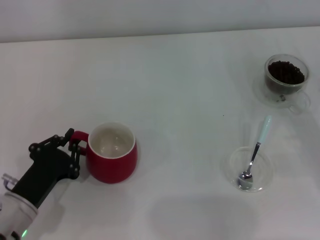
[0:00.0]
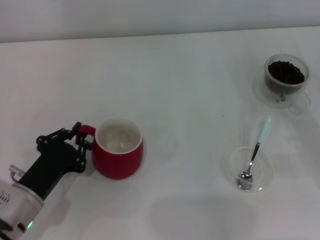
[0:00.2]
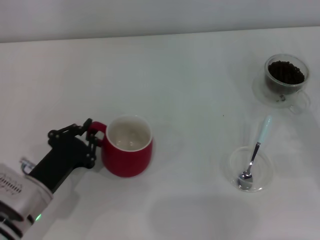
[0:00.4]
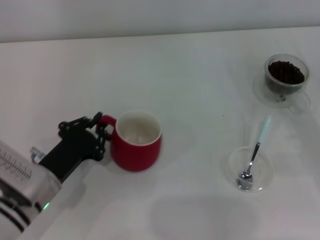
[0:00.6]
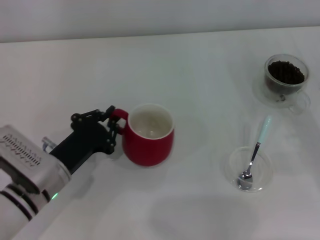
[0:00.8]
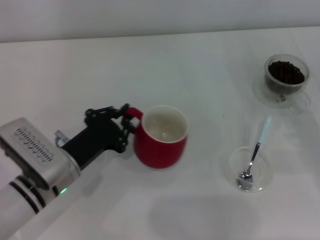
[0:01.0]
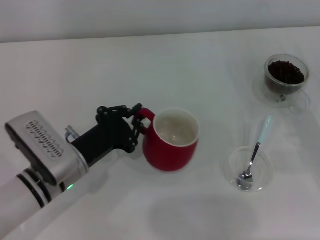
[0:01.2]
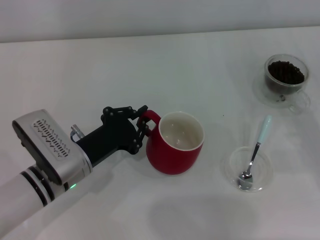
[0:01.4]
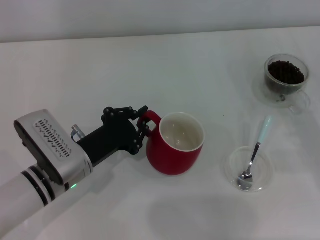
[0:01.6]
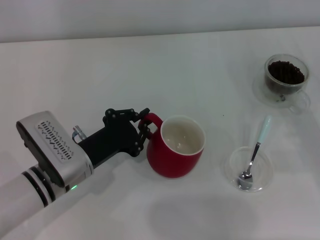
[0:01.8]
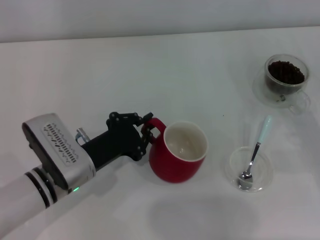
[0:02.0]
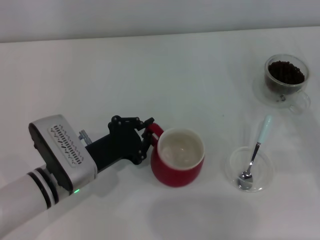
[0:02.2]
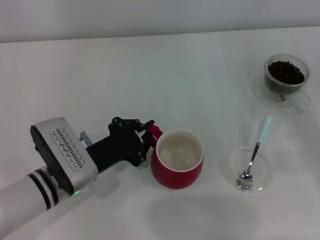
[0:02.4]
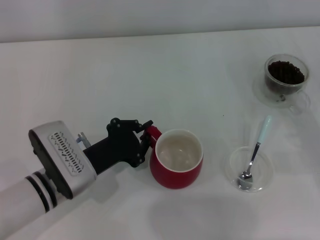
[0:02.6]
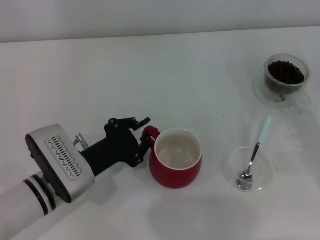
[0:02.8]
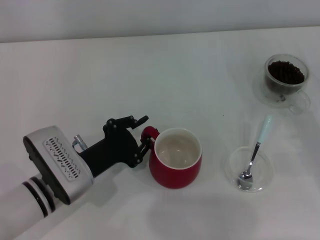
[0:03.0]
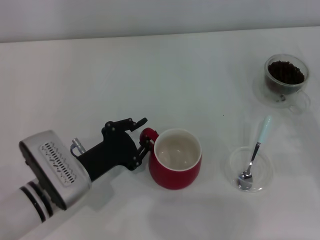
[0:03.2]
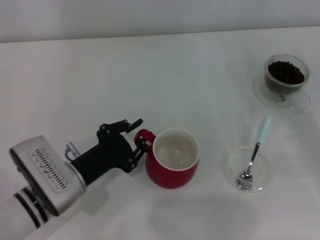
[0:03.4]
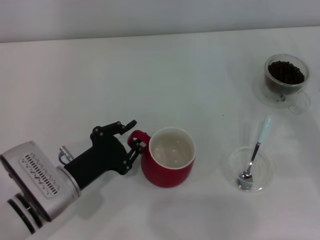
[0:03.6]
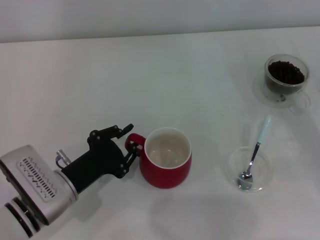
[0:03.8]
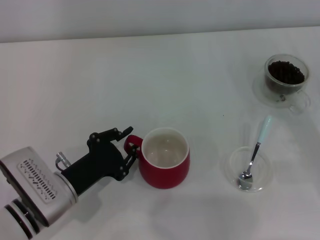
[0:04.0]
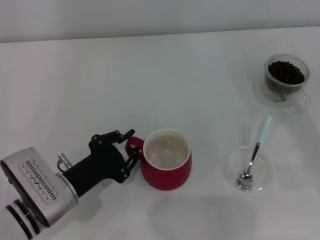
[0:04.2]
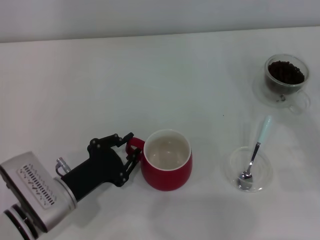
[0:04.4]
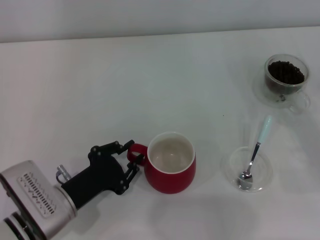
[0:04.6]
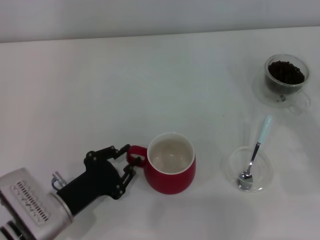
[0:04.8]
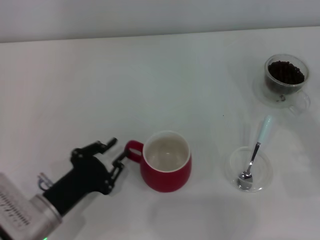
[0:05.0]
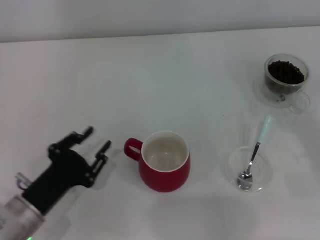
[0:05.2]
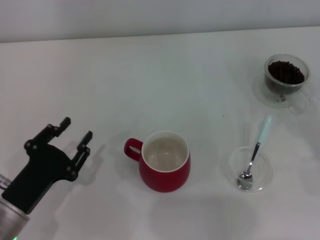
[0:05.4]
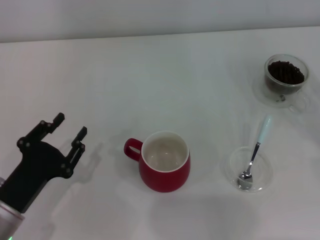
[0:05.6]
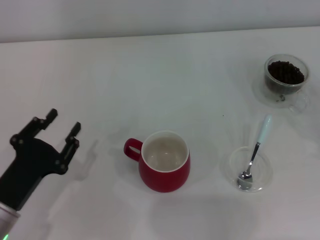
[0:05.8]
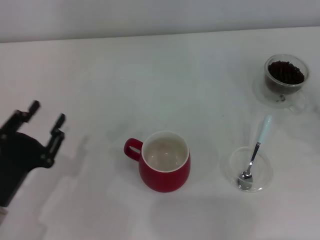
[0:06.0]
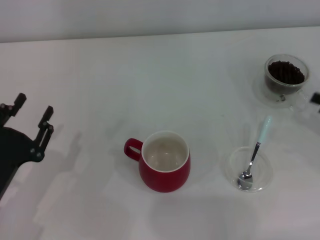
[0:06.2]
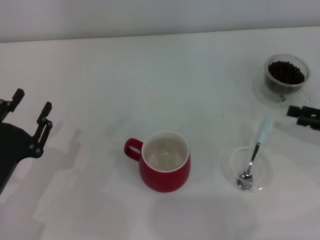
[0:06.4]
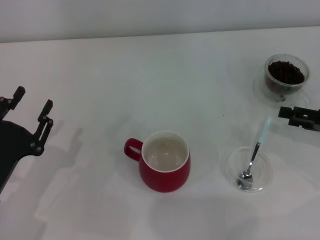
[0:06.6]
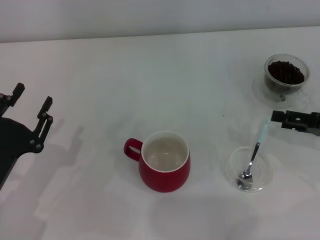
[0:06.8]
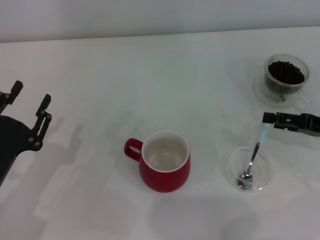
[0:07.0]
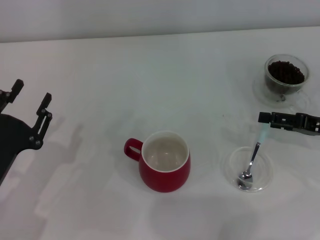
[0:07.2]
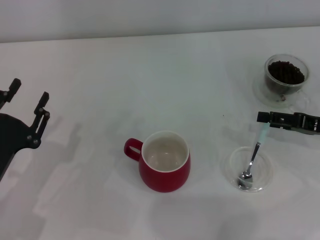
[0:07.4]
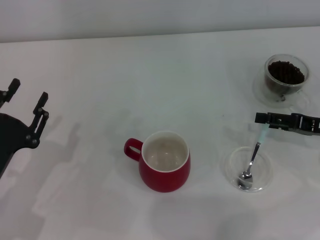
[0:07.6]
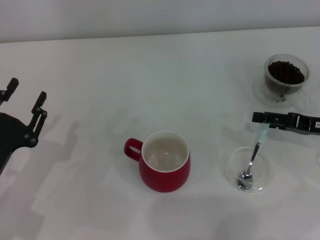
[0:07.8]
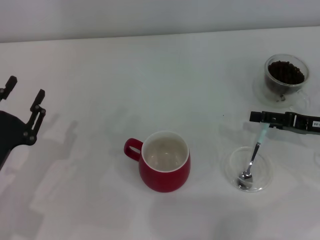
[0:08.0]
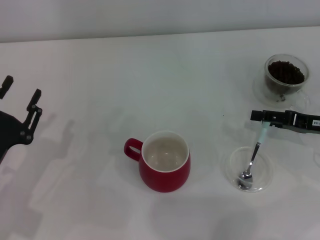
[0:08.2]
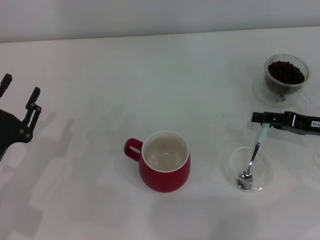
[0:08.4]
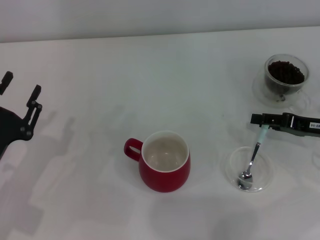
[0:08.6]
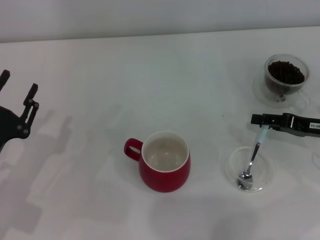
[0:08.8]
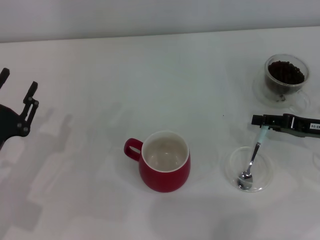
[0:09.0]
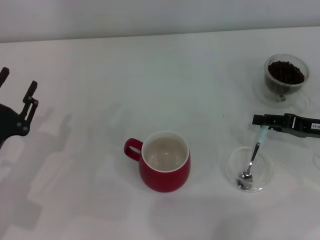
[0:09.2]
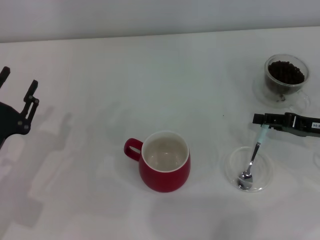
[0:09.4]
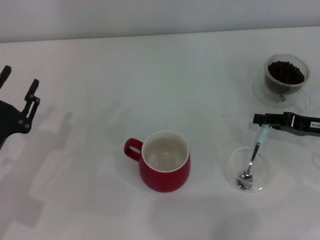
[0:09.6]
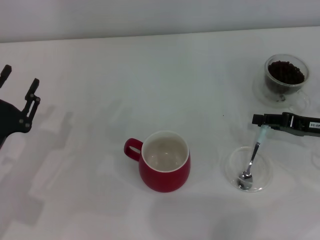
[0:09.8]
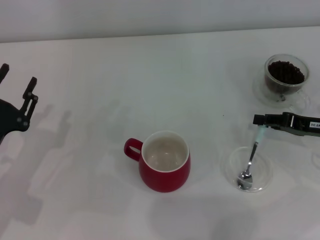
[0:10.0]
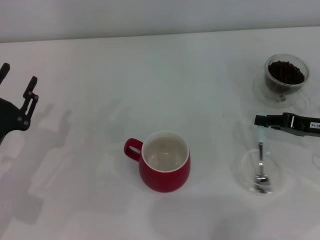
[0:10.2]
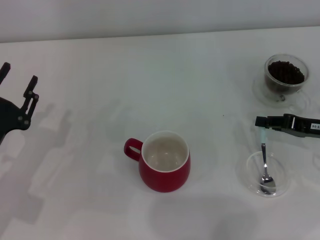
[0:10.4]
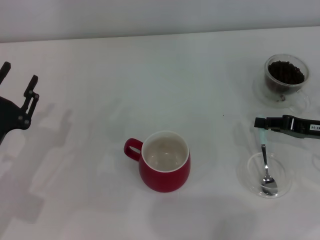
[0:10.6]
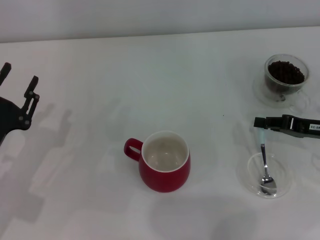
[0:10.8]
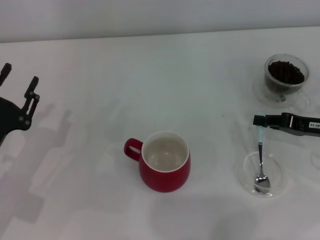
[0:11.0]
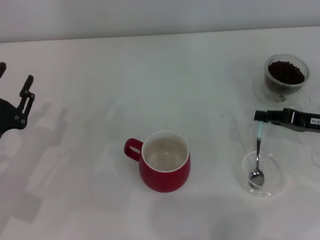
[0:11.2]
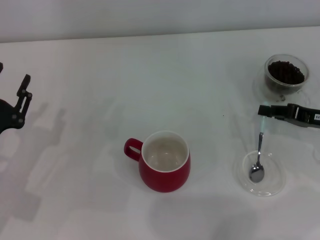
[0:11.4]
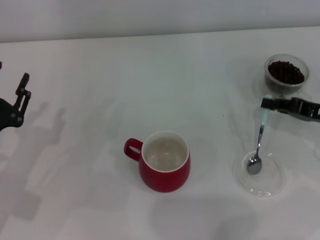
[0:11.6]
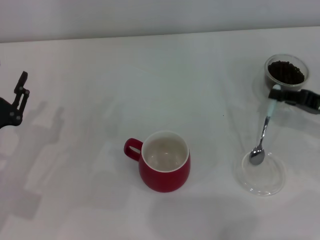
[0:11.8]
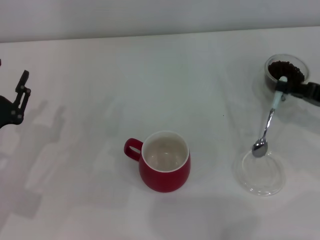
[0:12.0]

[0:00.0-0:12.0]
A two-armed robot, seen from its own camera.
Task of the whole recording: Use a blue spoon to take out the coffee beans from the glass and pour them into the red cup.
Step, 0:00.0 to 0:04.8: Move the cup to the center of view with the left gripper.
Step, 0:05.0 to 0:11.6: Pick up the spoon with the right gripper.
0:00.0 to 0:01.6: The left gripper moves to the right and forward, some 10 cm.
0:01.6 to 0:04.4: The grippers make only small movements.
0:04.4 to 0:06.0: The right gripper is displaced to the right by about 5 cm, while the left gripper goes approximately 5 cm to the left.
0:06.0 to 0:07.6: The right gripper moves to the left and forward, roughly 10 cm.
0:07.6 to 0:09.0: The right gripper closes up.
0:09.0 to 0:10.4: The right gripper closes up.
0:10.4 to 0:12.0: The grippers make only small movements.

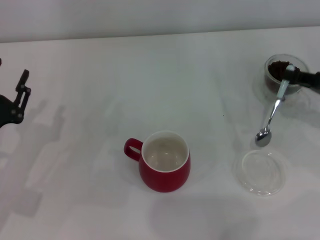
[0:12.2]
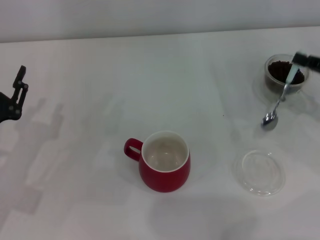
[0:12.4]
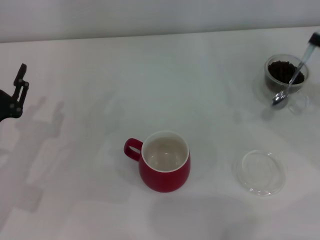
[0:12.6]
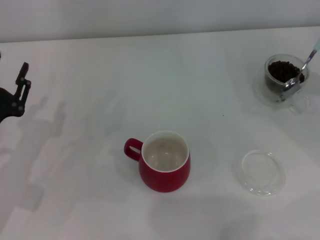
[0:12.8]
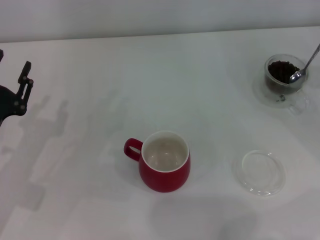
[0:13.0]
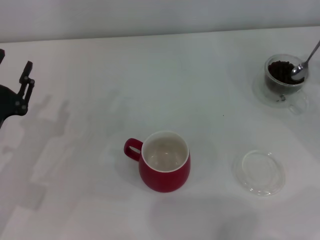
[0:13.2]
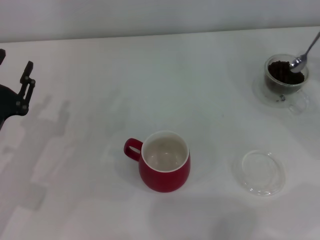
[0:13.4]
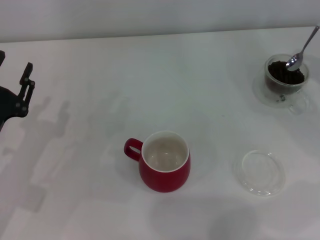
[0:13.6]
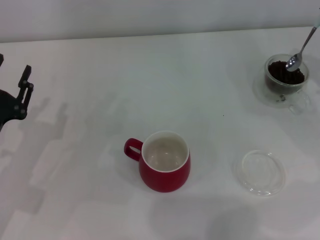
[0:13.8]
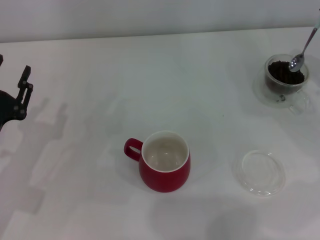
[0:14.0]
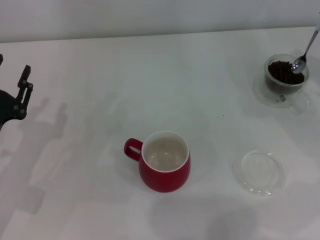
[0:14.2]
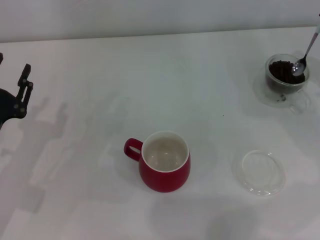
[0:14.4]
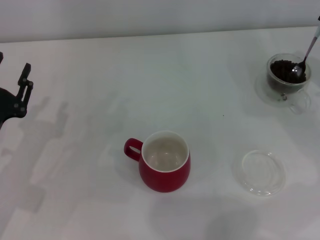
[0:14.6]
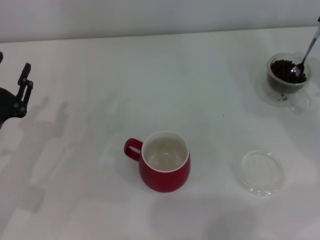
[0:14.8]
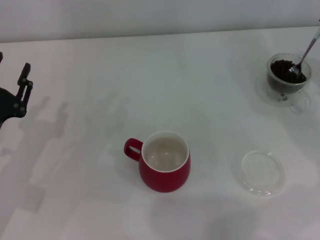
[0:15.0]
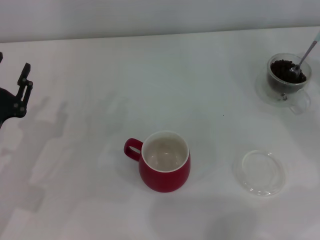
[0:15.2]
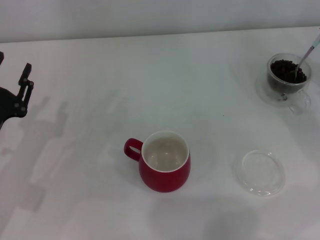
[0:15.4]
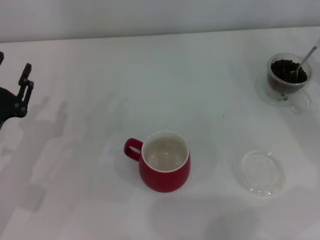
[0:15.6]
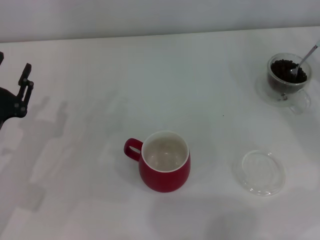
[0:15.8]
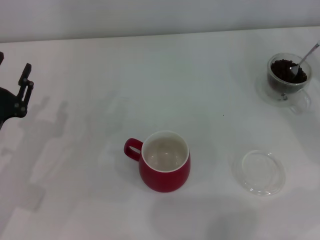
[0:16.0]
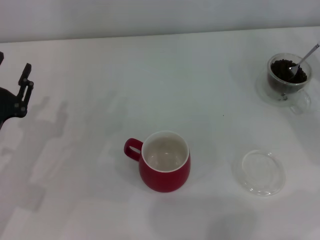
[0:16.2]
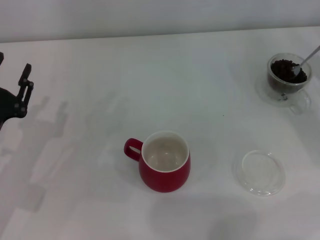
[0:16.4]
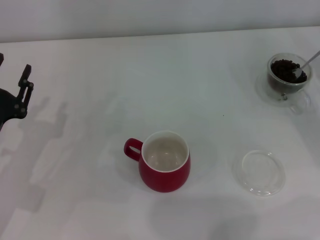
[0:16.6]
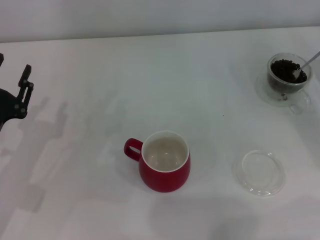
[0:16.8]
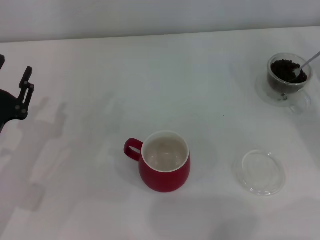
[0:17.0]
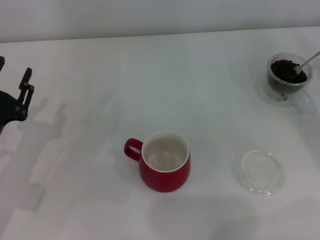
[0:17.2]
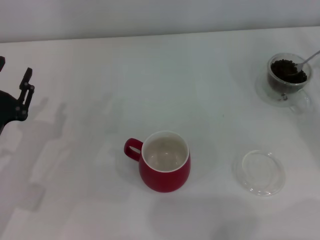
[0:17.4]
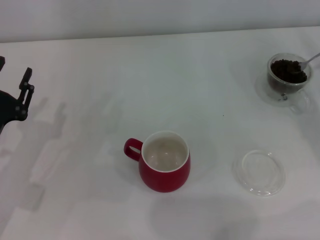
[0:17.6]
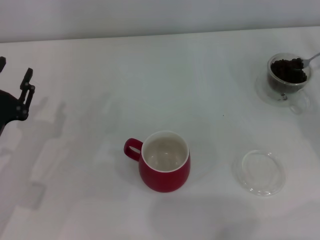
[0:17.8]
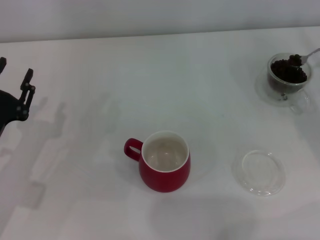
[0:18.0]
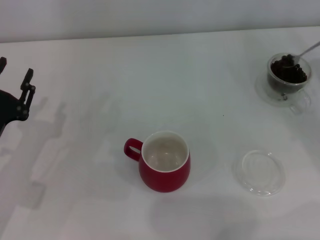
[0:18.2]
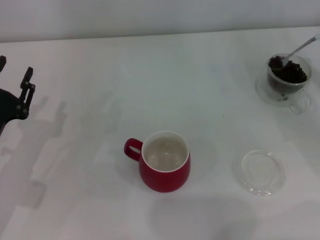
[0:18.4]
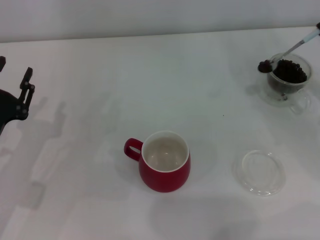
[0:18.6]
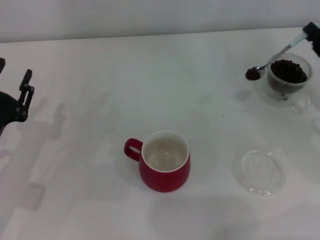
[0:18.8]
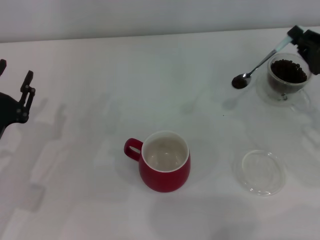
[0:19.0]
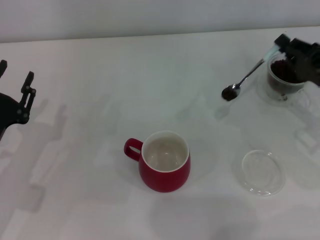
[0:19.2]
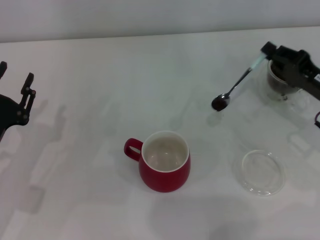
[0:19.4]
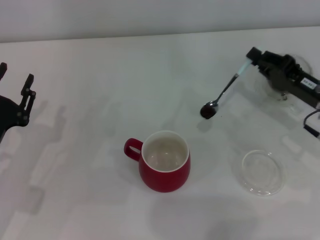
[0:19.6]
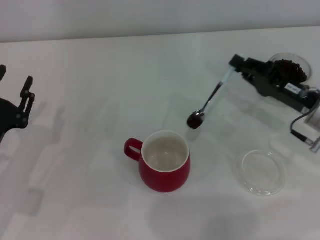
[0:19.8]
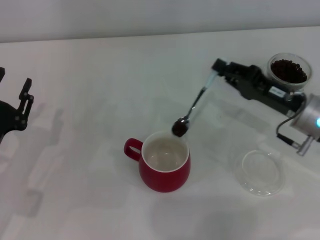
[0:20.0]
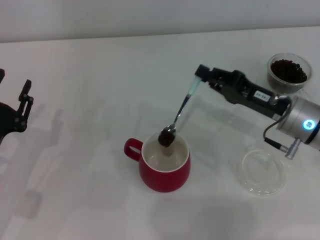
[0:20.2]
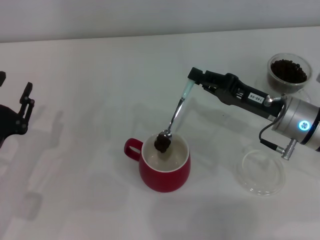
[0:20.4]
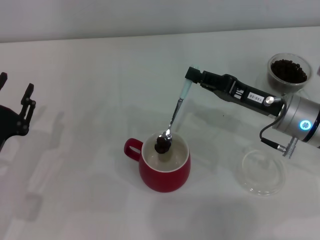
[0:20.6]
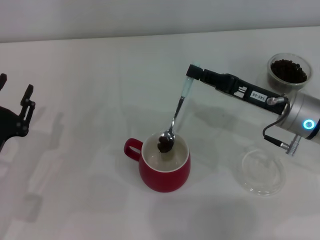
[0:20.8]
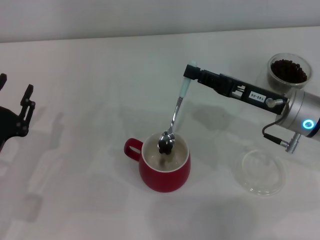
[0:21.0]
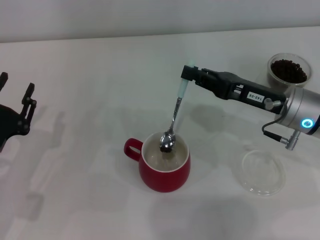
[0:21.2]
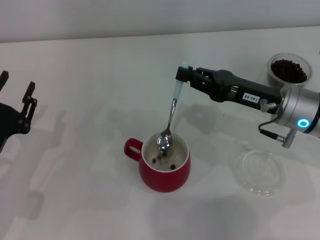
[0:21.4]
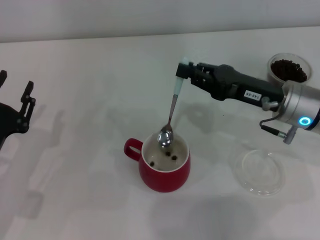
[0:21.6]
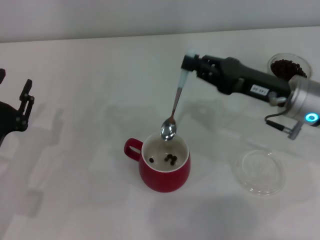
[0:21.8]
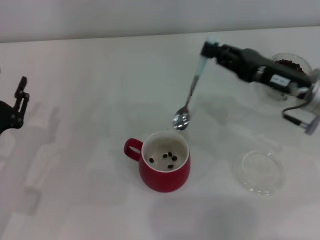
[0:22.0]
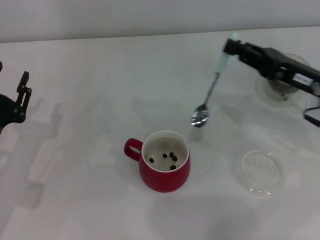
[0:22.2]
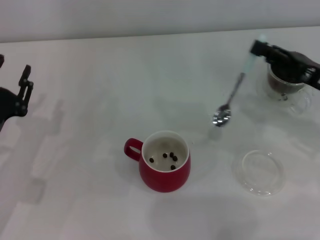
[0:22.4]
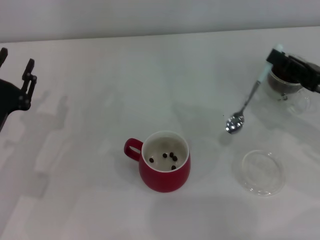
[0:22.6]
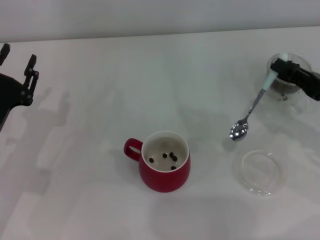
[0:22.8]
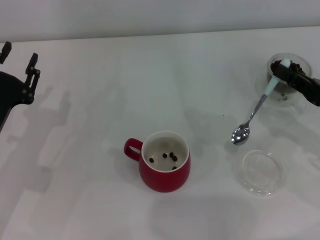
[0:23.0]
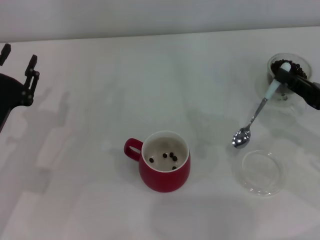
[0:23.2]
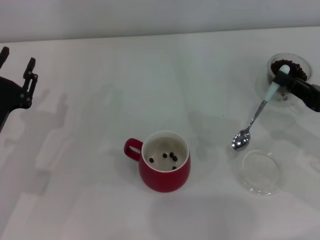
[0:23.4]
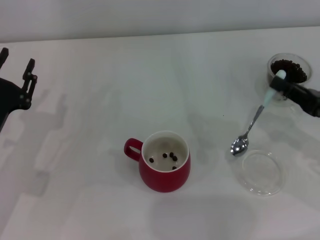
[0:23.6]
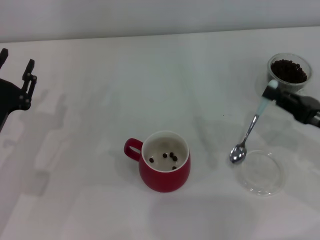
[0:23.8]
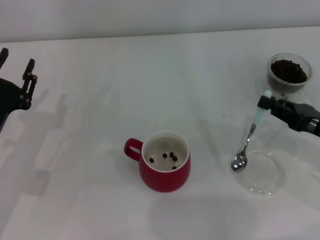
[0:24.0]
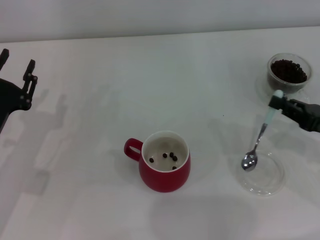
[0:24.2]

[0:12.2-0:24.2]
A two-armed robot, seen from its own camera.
Task of the whole recording: Use a blue spoon to take out the coffee beans from the glass and pour them into the red cup.
Step, 0:12.2 to 0:21.6: Scoop a spoonful of beans into the cup with the right gripper.
0:12.2 to 0:13.8: The right gripper shifts by approximately 5 cm.
0:13.8 to 0:15.2: The grippers make only small movements.
0:16.6 to 0:18.2: The grippers make only small movements.
0:18.2 to 0:19.8: The right gripper travels to the left by about 10 cm.
0:19.8 to 0:21.2: The right gripper moves about 5 cm.
0:21.2 to 0:22.6: The right gripper heads to the right, covering some 10 cm.
0:22.6 to 0:24.2: The grippers stay close to where they were, moving slightly.
